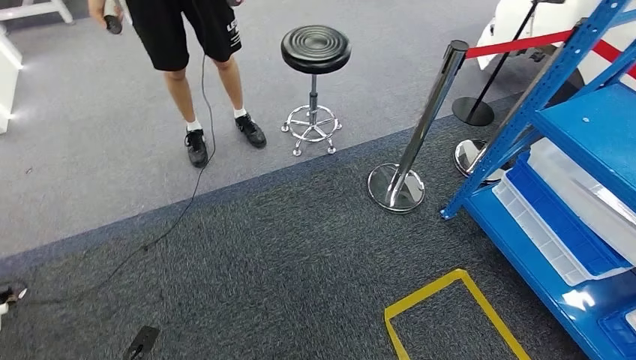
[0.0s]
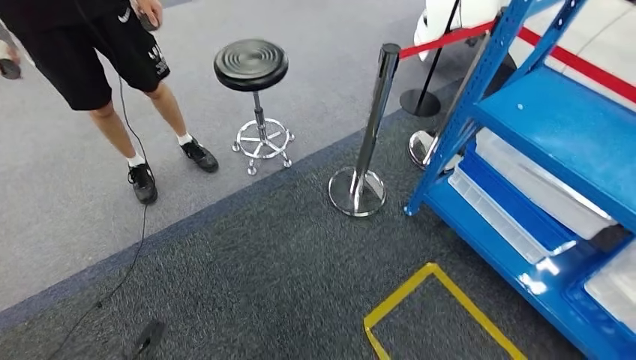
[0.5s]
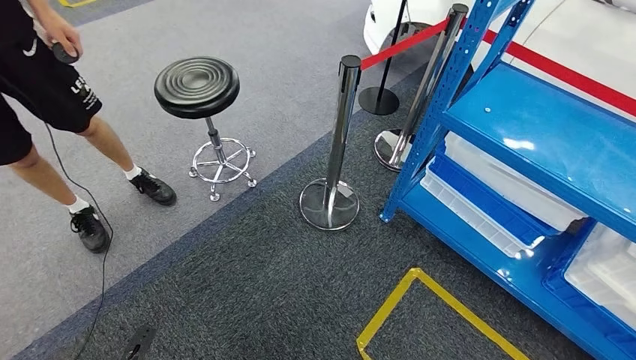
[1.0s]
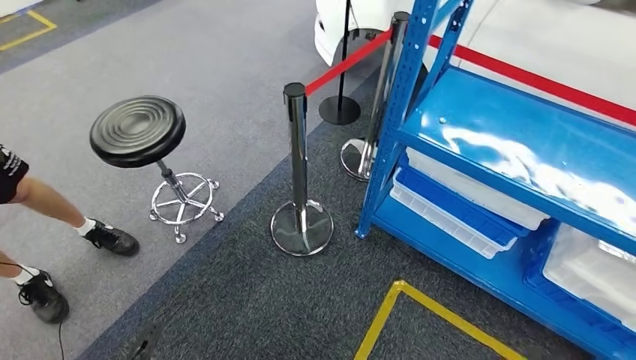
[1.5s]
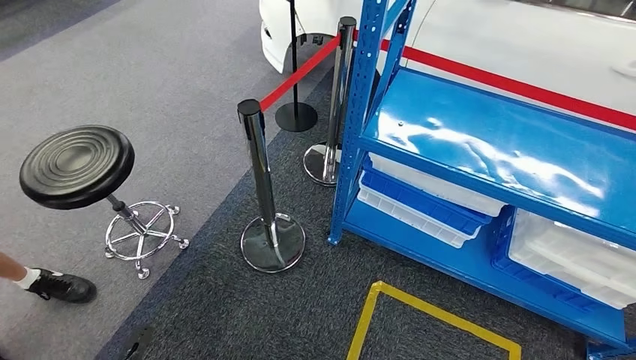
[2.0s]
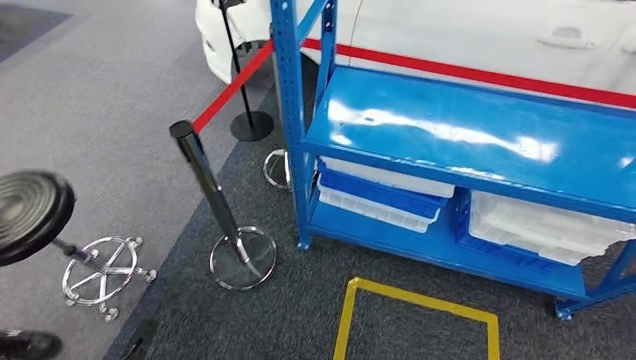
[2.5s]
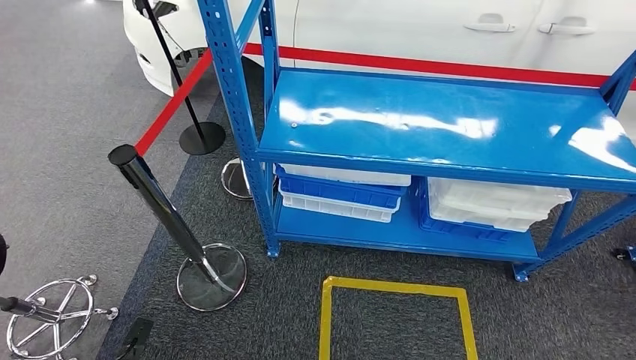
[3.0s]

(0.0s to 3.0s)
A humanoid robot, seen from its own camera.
Step, 0.0s - 3.0s: Move to the initial position of the shelf.

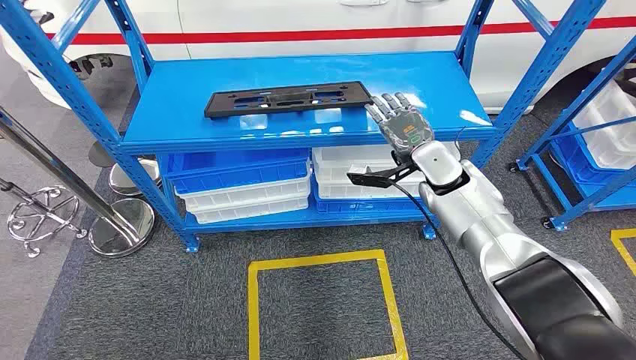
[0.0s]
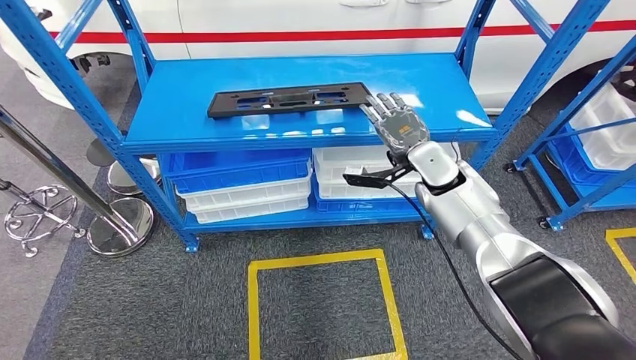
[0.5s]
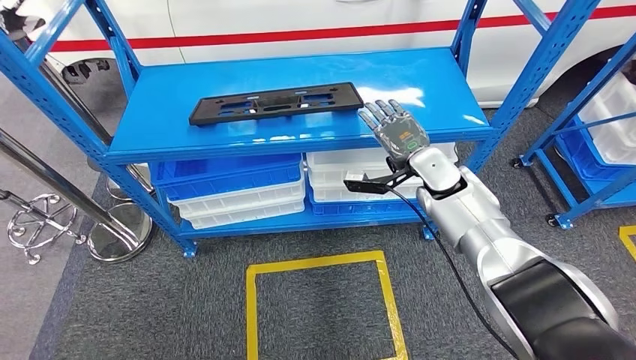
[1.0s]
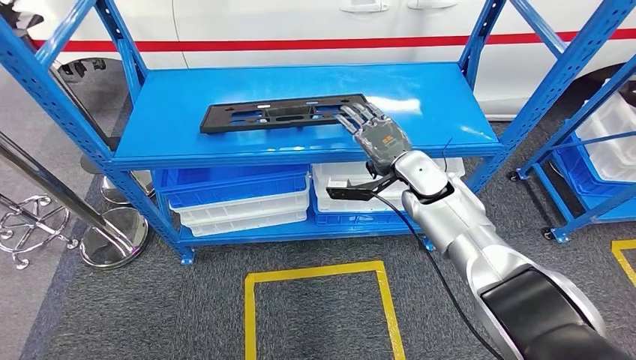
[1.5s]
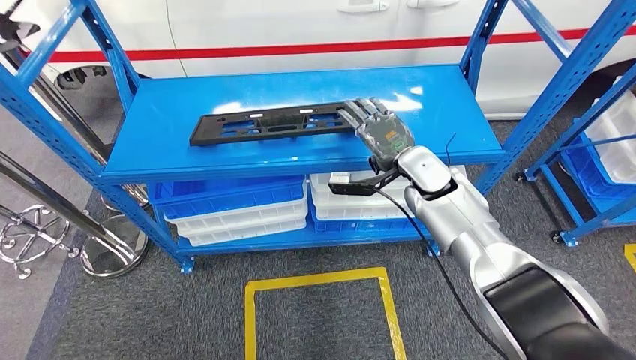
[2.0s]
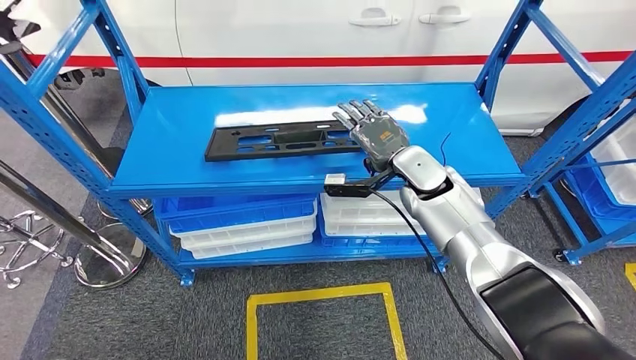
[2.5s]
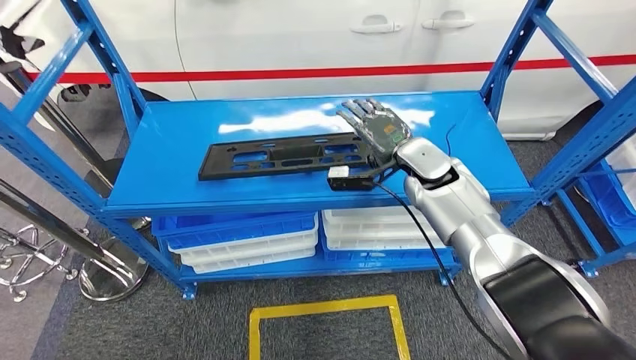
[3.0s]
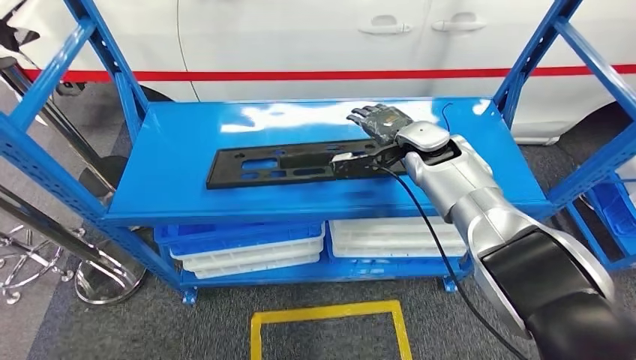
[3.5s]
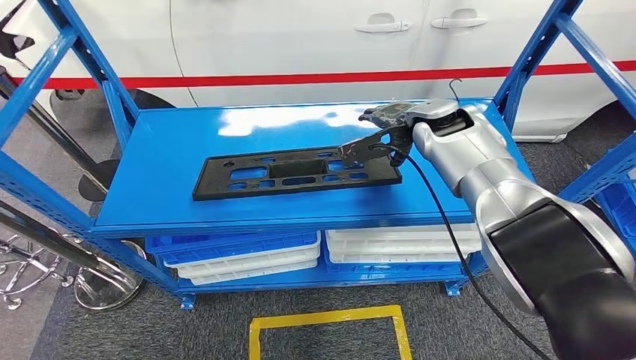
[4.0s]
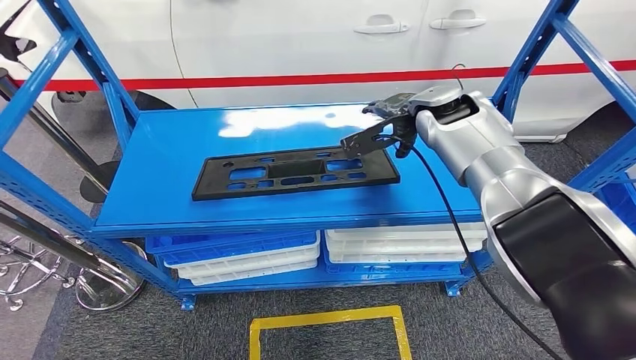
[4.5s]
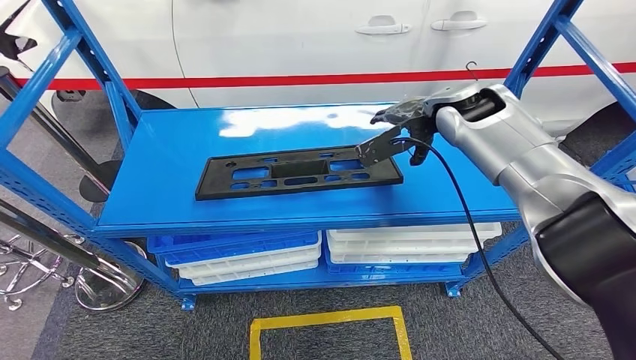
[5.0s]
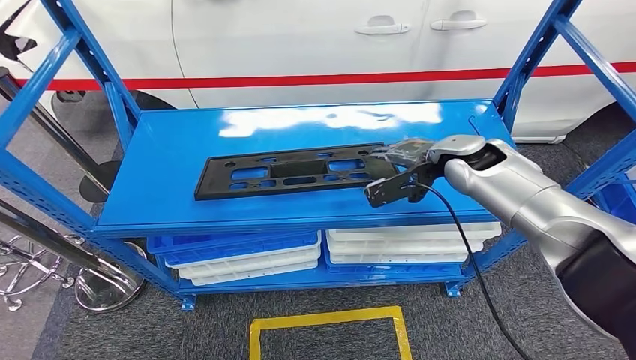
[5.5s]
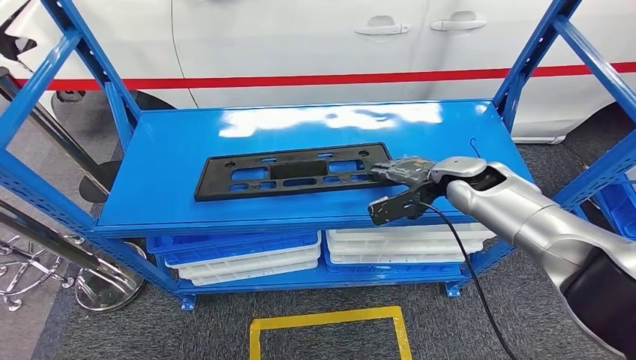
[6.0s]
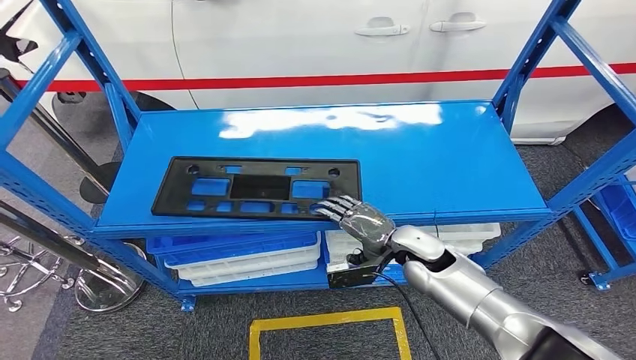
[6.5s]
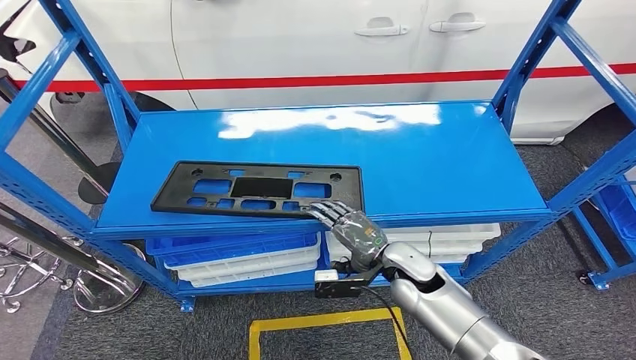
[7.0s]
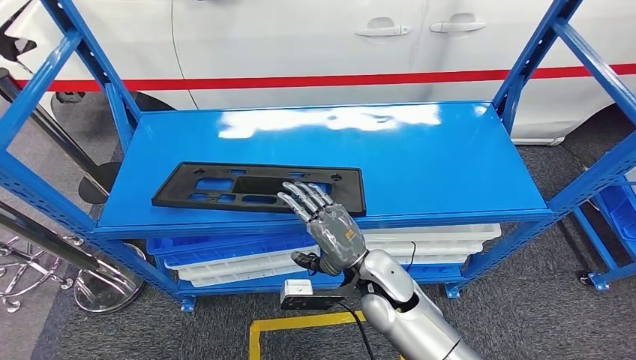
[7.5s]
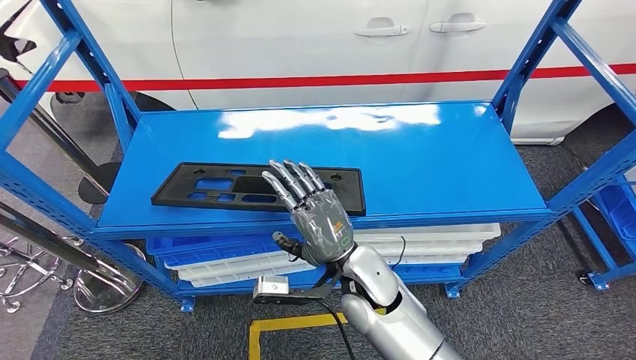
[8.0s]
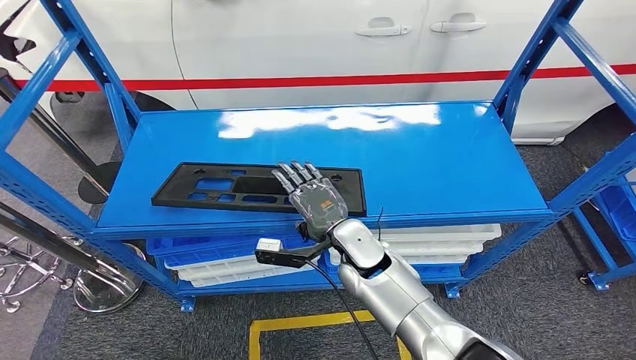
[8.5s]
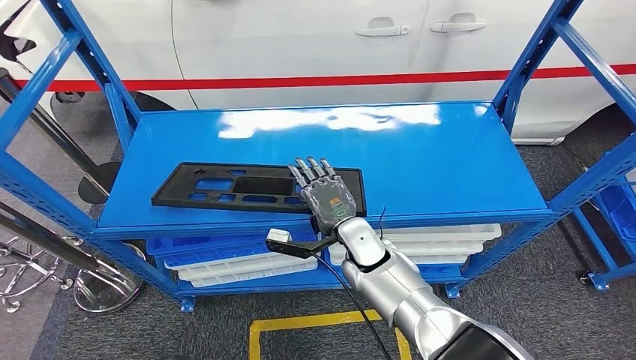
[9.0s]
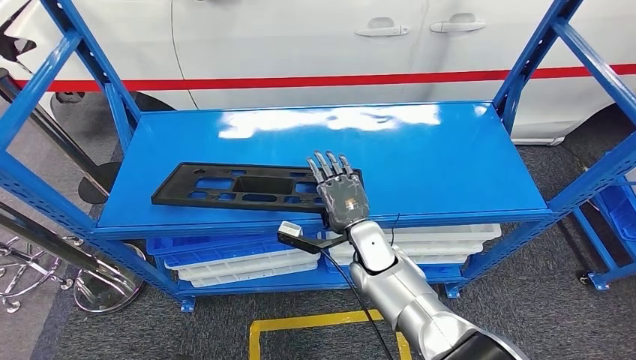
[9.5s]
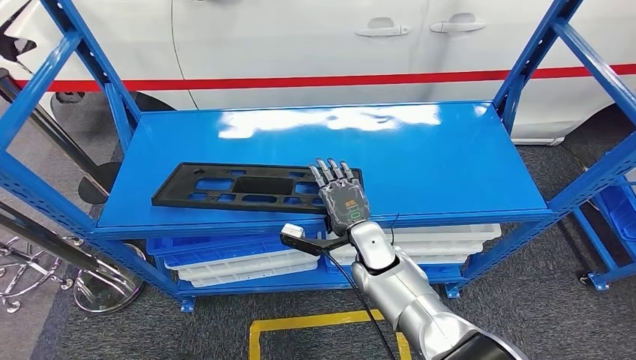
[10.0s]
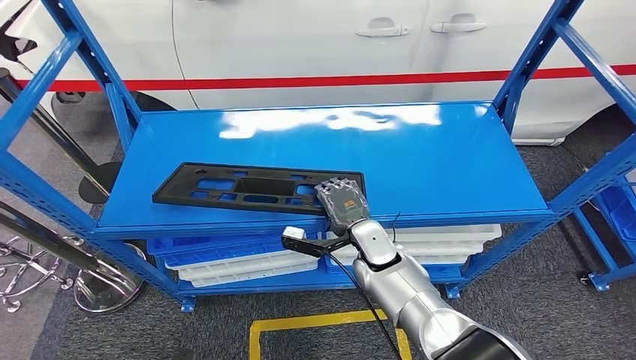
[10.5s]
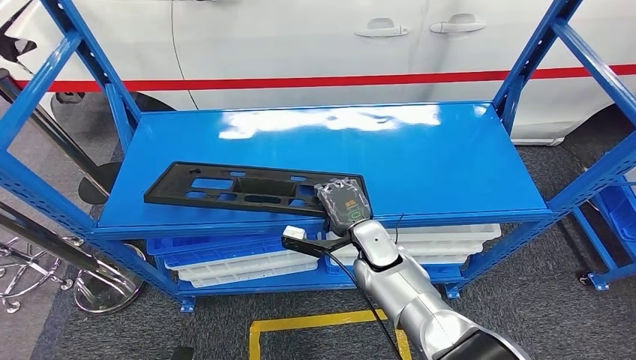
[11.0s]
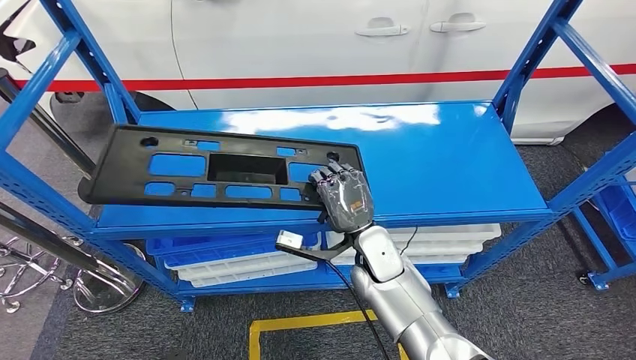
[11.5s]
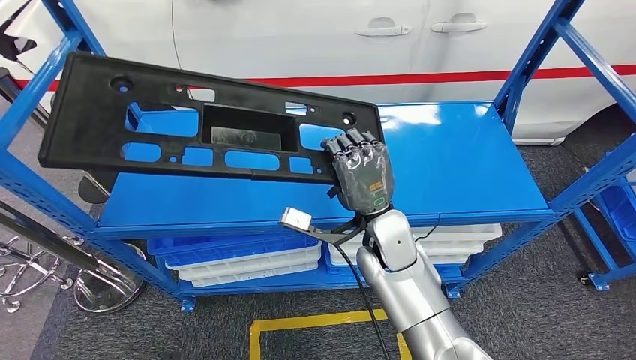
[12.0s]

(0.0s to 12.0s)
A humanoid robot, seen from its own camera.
8.0s - 10.0s: The right hand moves forward and downward, some 10 cm.
10.0s - 12.0s: The right hand moves upward, roughly 10 cm.

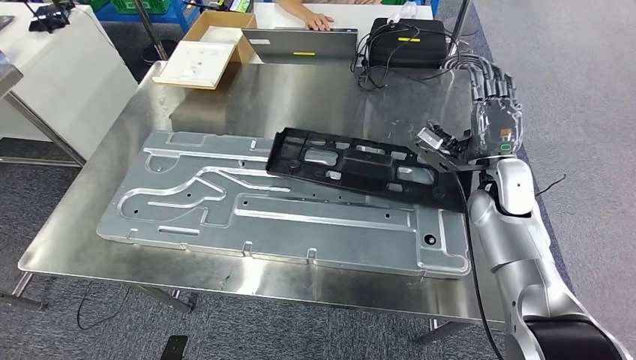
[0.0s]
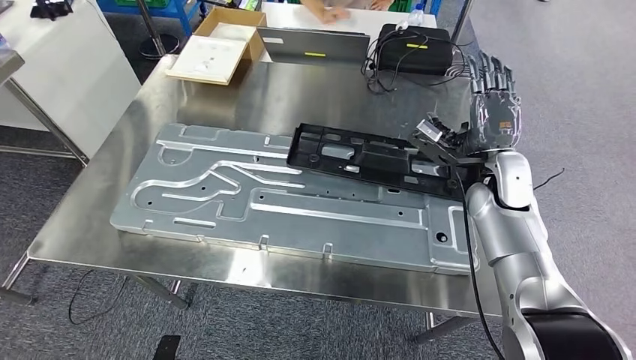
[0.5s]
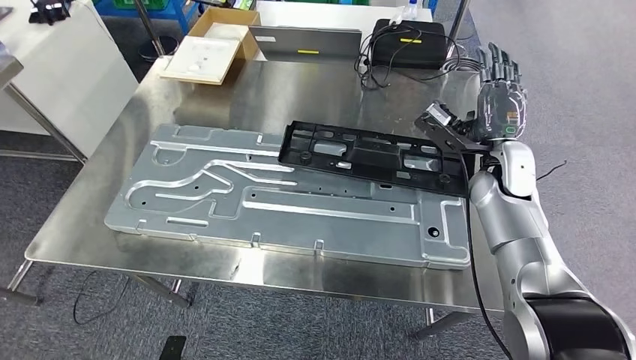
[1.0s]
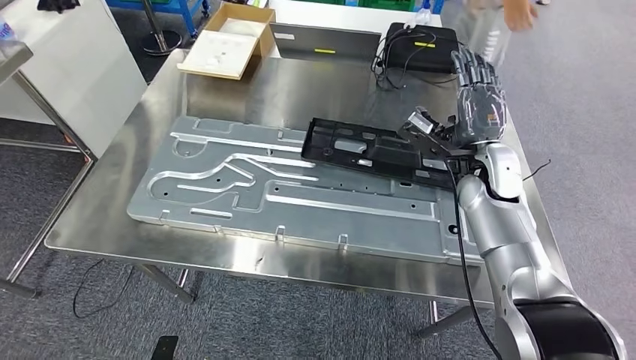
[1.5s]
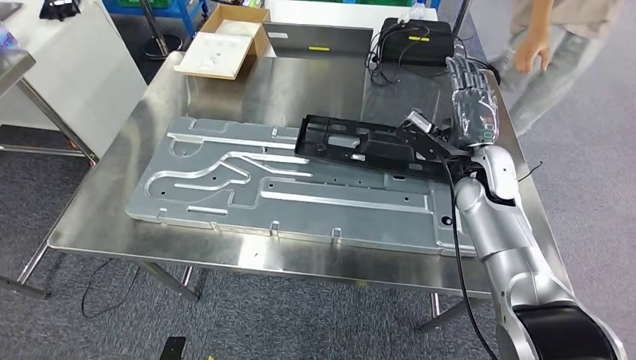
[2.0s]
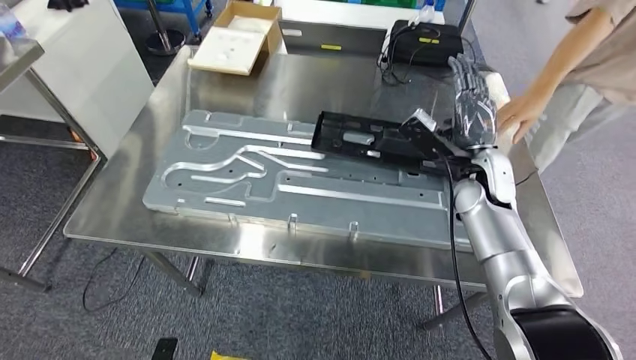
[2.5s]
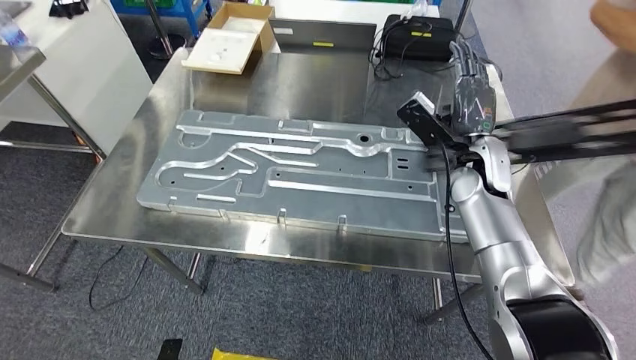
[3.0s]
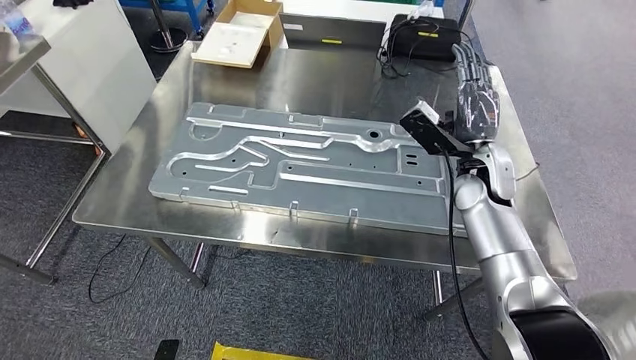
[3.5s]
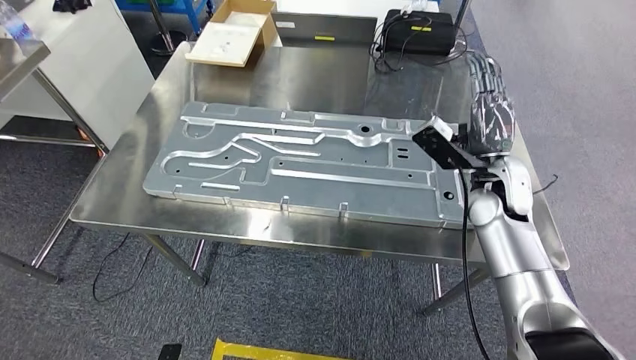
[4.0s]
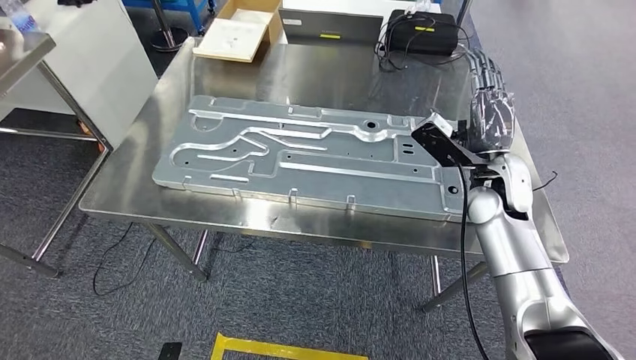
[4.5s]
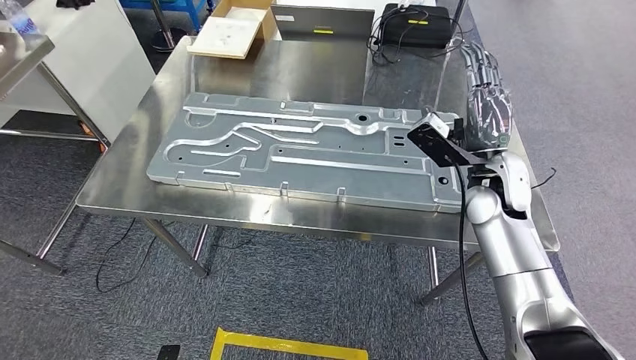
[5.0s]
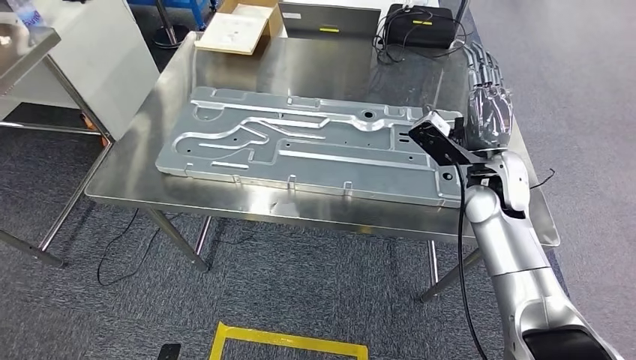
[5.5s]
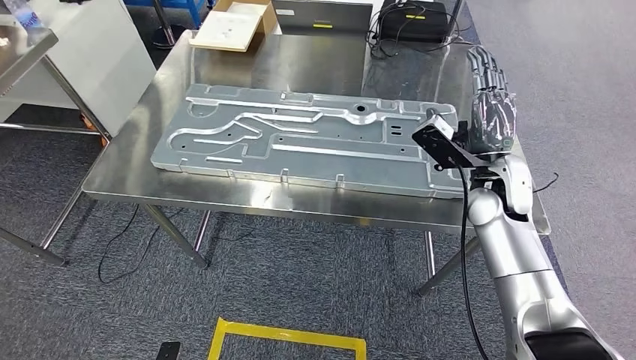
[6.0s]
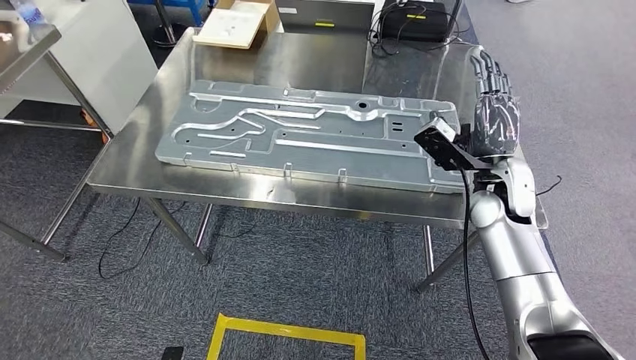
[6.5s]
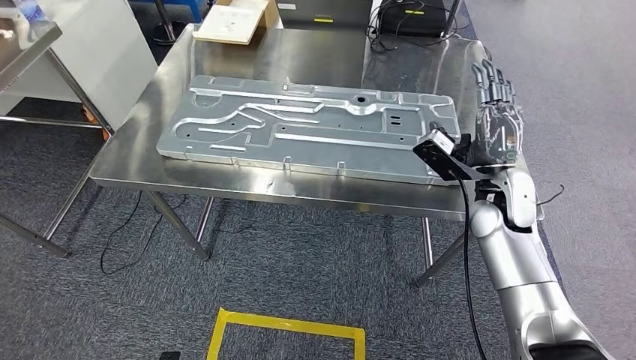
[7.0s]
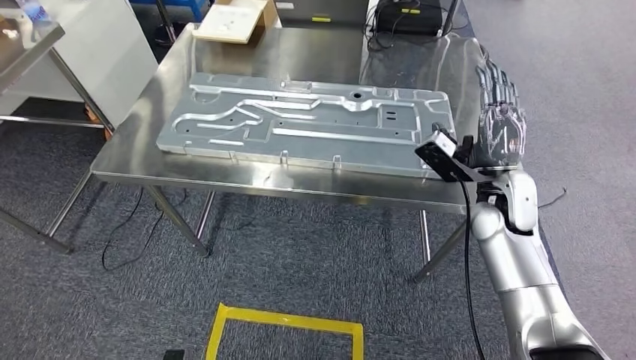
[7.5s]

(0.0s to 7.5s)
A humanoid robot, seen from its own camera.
Step, 0.0s - 4.5s: Insert the large material into the corresponding slot on the workbench.
